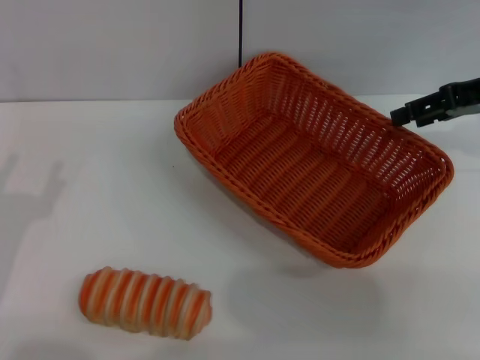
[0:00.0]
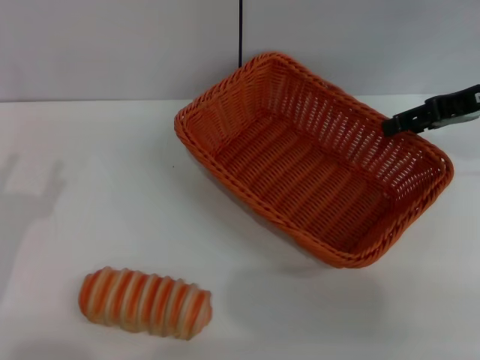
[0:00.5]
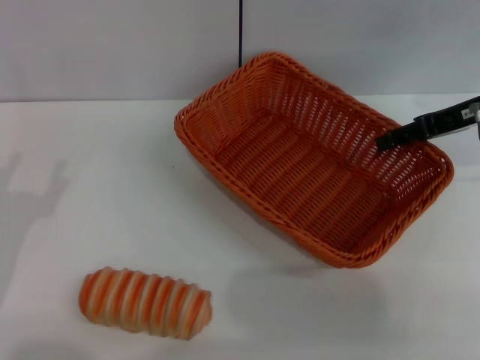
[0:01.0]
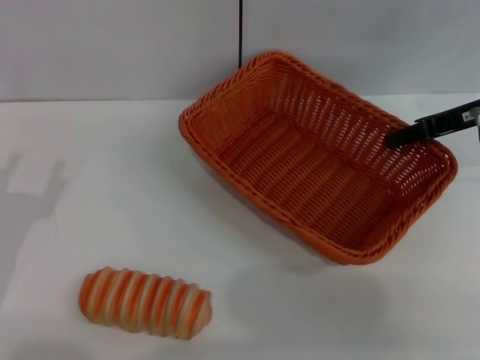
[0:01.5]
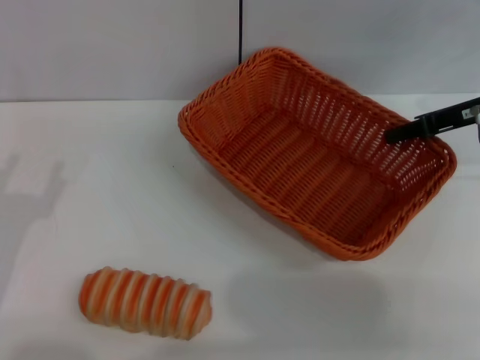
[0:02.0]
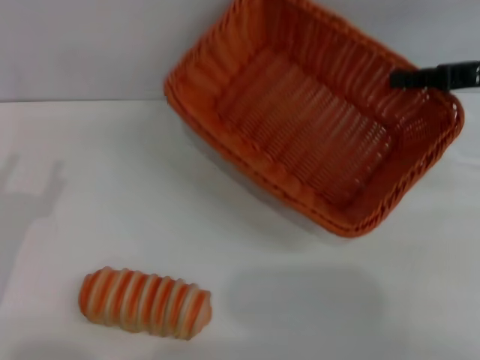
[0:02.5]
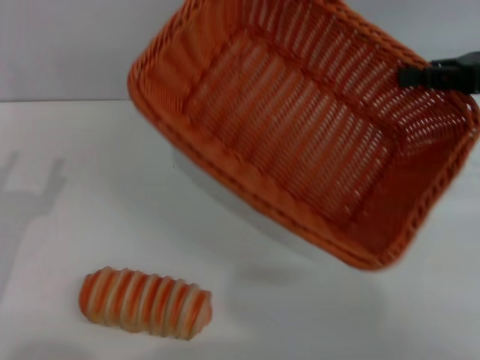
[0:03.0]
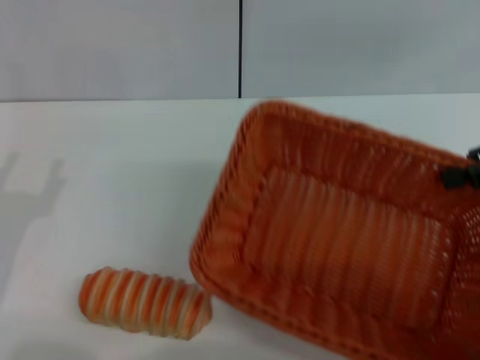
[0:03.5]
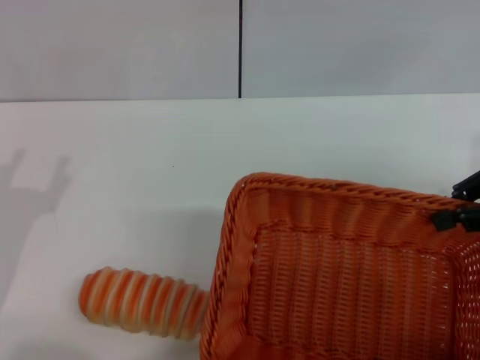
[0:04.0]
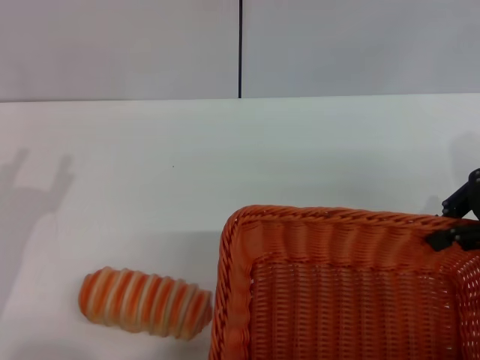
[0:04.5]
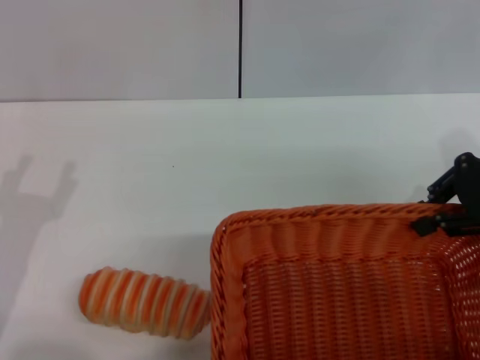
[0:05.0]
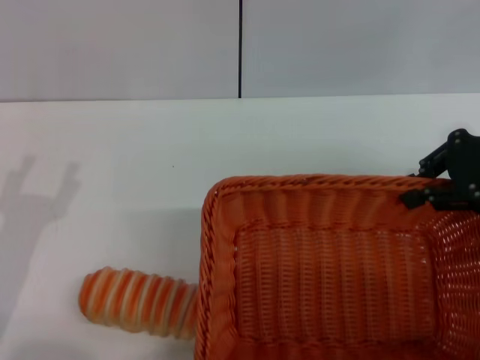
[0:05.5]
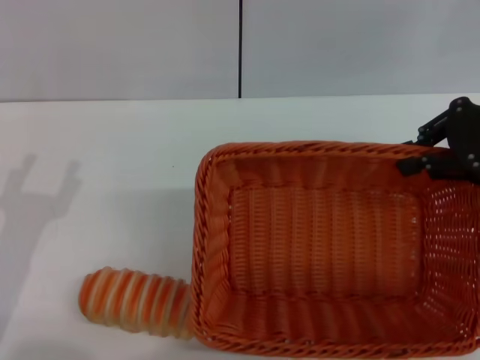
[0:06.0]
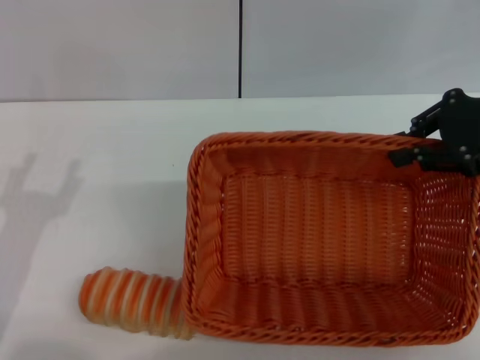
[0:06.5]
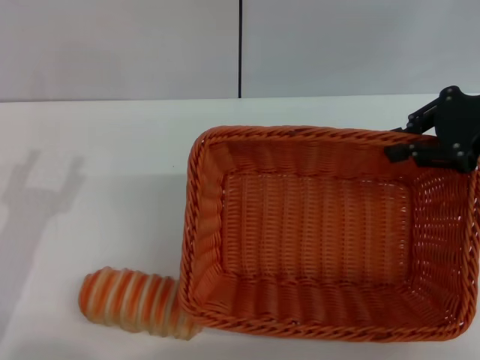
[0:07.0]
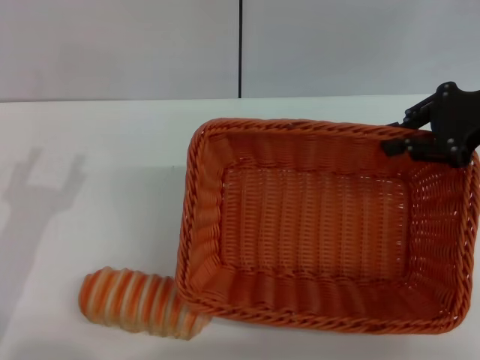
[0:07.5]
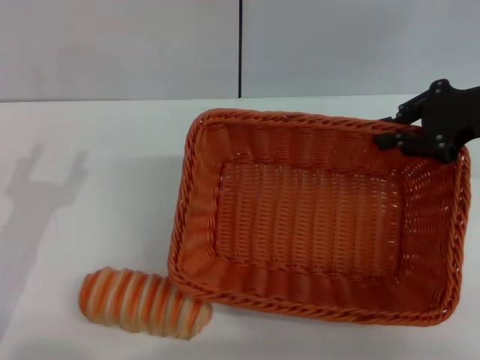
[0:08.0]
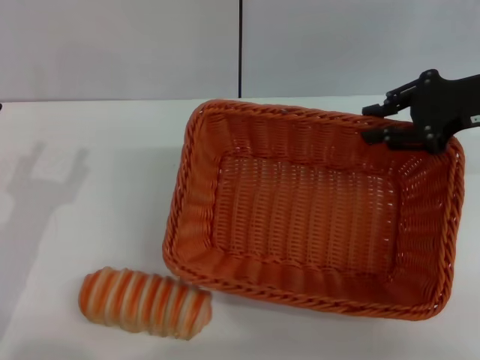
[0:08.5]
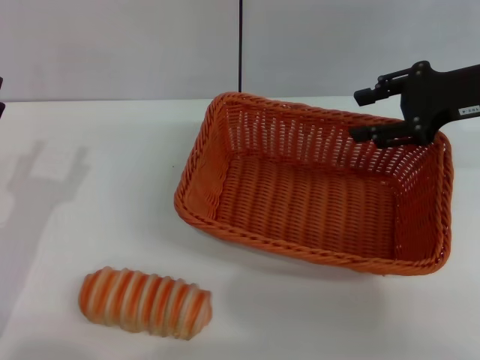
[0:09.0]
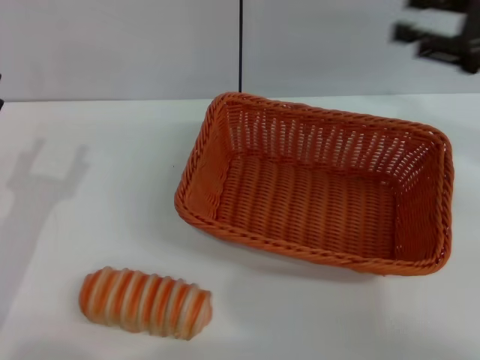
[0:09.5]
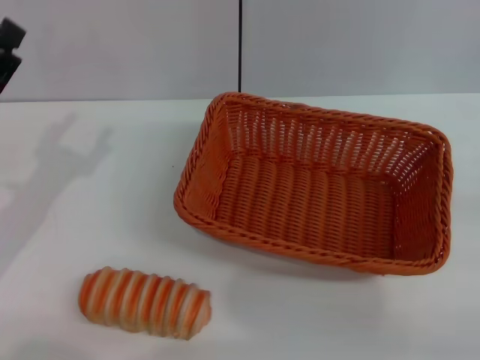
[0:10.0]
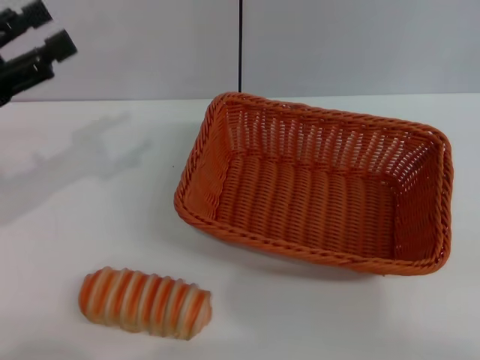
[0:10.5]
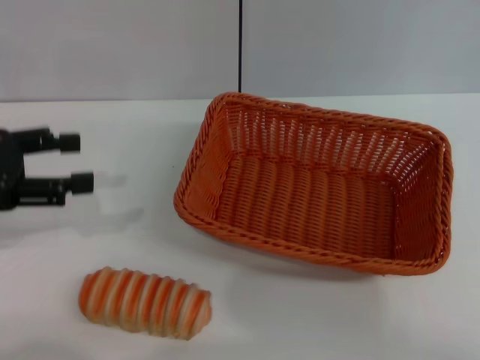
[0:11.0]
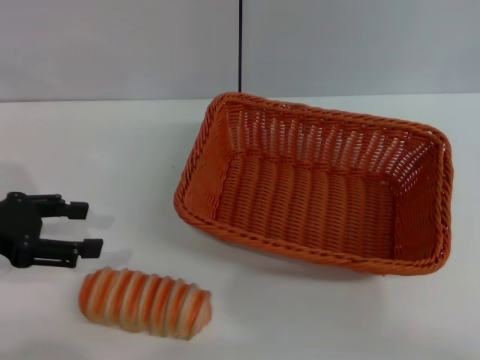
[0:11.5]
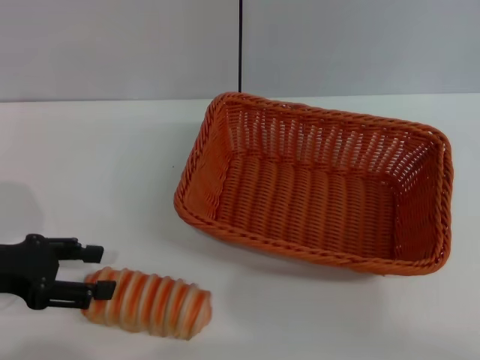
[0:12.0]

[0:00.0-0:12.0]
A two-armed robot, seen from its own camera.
Step, 0:00.0 to 0:02.0: Pick up the light basket with the right gripper.
Step, 0:02.5 to 0:08.5: Place the light basket in the center of view with the right gripper.
0:00.0 to 0:02.0: The right gripper closes up.
0:02.0 to 0:04.0: The right gripper goes about 5 cm backward.
0:06.0 to 0:08.0: The grippers move only a little.
0:08.0 to 0:10.0: The left gripper travels forward by approximately 5 cm, while the right gripper travels backward, to the right and downward by roughly 25 cm, and opens its fingers.

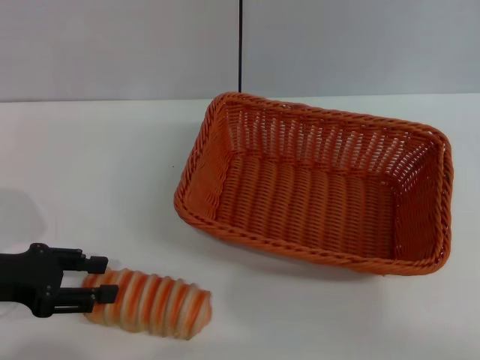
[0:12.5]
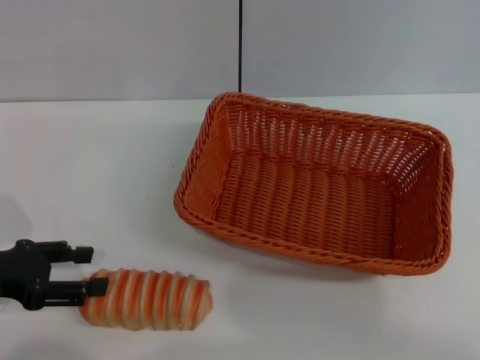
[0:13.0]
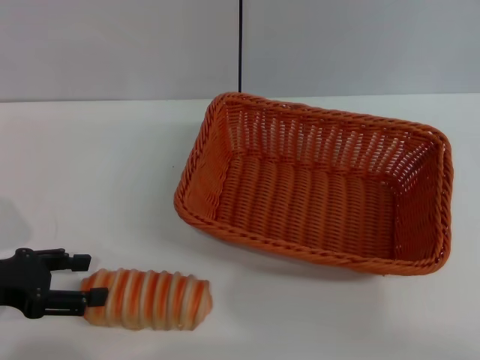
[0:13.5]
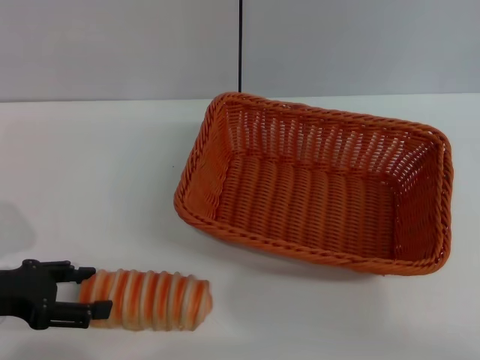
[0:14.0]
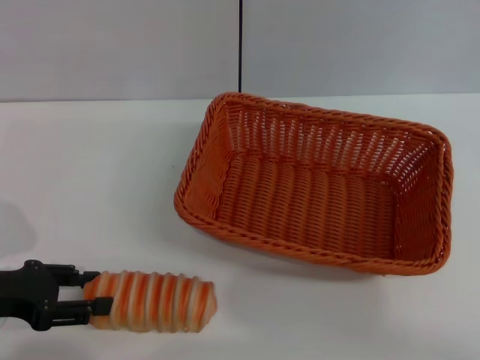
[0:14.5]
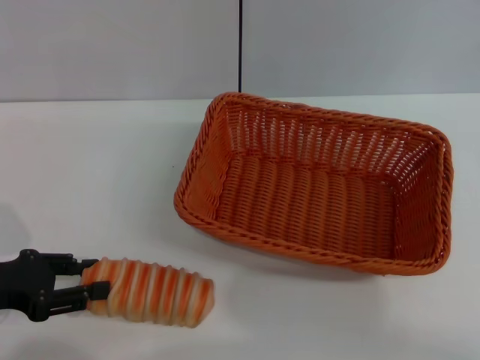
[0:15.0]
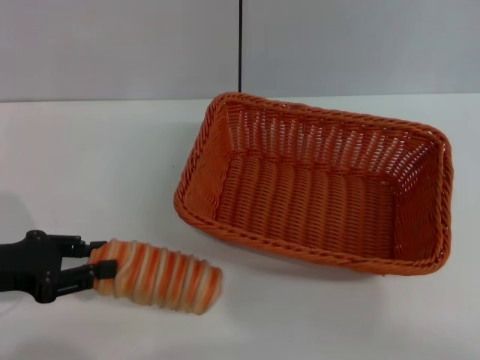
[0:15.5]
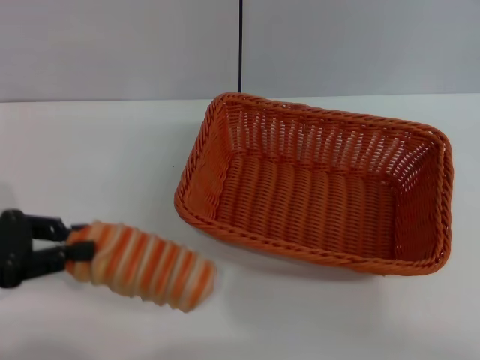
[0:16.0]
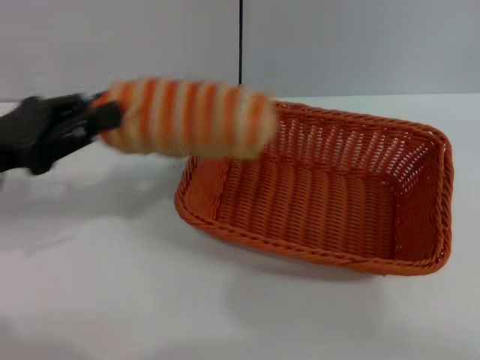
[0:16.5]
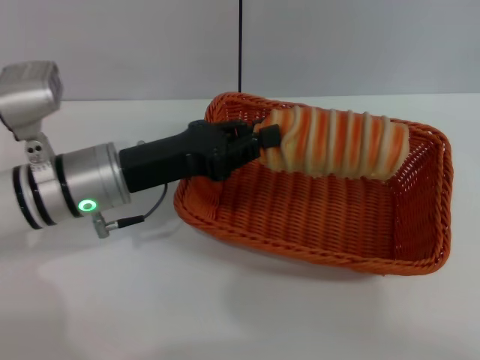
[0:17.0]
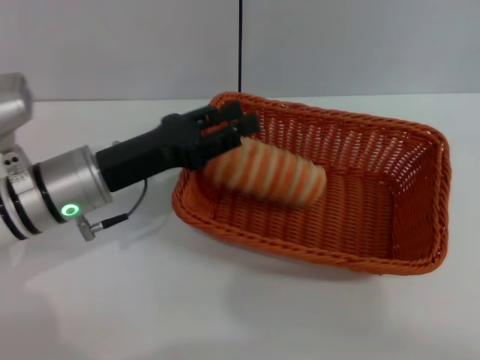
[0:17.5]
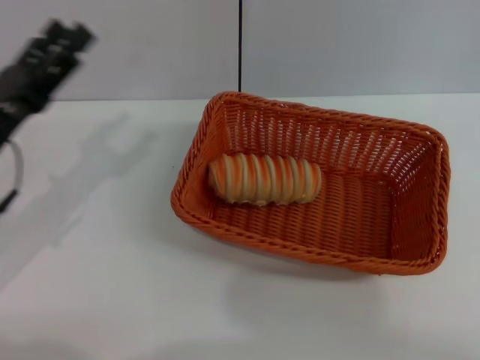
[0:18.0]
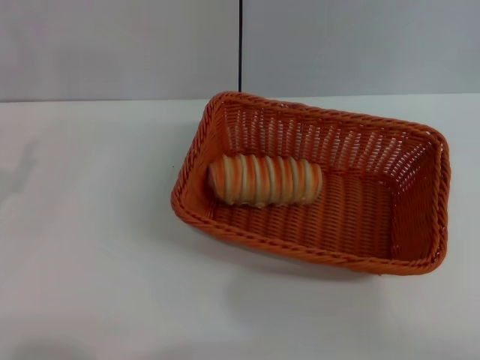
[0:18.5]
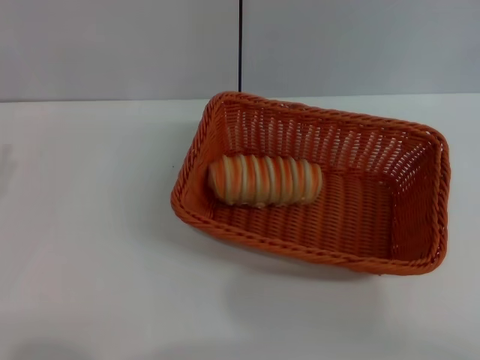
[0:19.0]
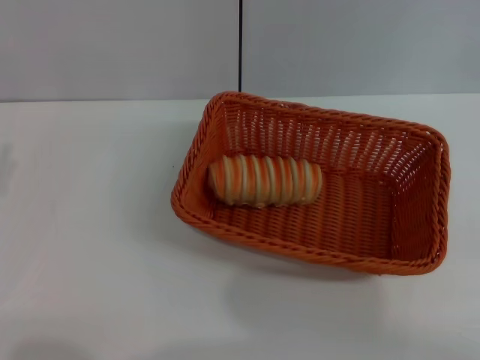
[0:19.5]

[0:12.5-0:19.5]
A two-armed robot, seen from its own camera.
Step, 0:12.5 to 0:16.0: Pick up the long bread with the left gripper.
Step, 0:16.5 to 0:17.5: Place the long bread into the dark basket with the left gripper.
0:12.5 to 0:14.5: The grippers stay close to where they were, moving slightly.
0:14.5 to 0:16.0: The left gripper moves upward, about 5 cm, and closes up.
0:16.0 to 0:17.5: The left gripper goes about 15 cm to the right and forward.
0:17.5 to 0:19.5: The left gripper is displaced to the left and backward by roughly 20 cm, and opens its fingers.
